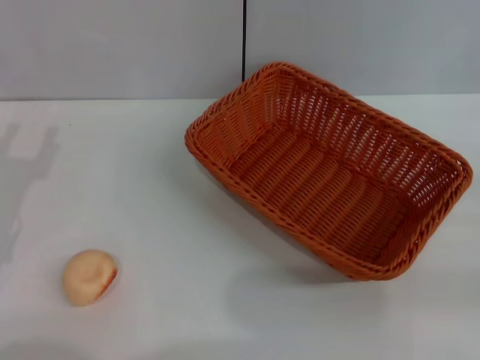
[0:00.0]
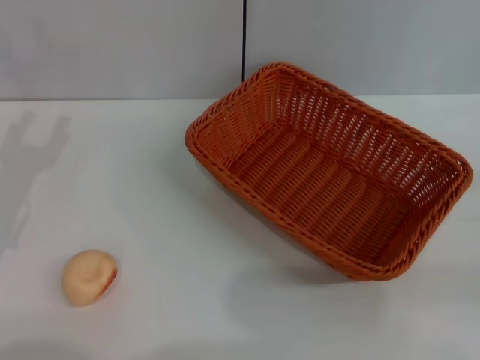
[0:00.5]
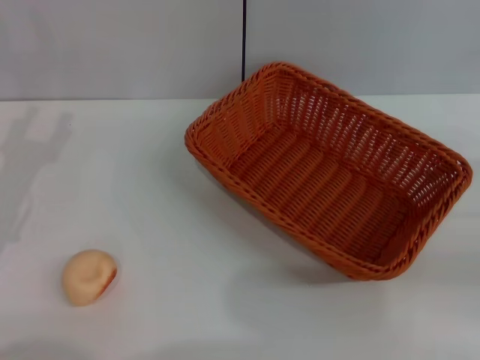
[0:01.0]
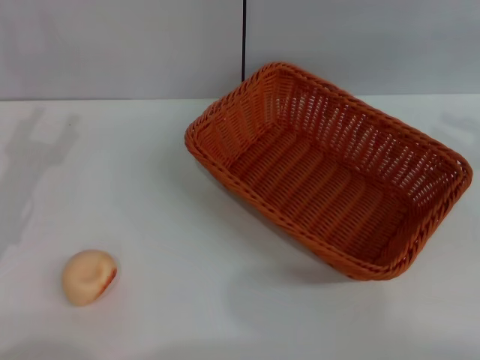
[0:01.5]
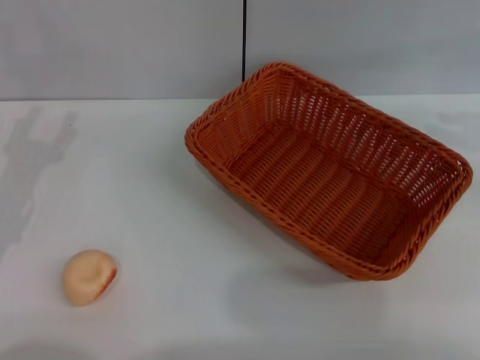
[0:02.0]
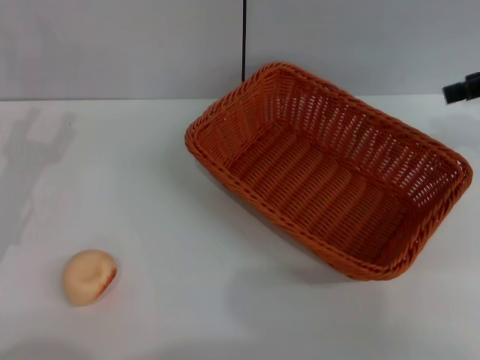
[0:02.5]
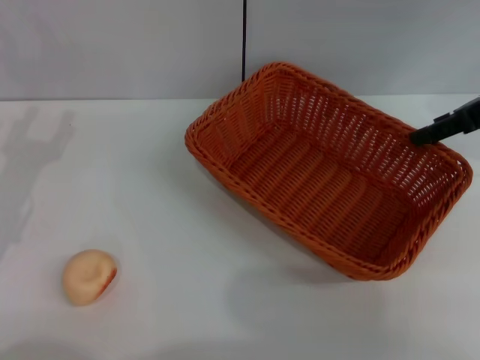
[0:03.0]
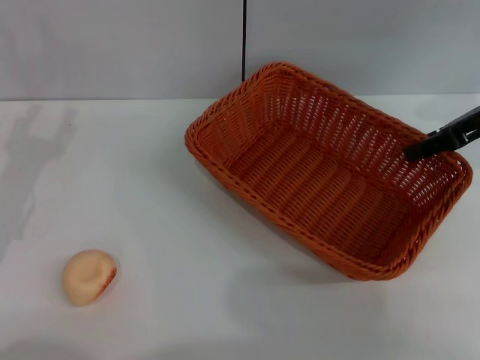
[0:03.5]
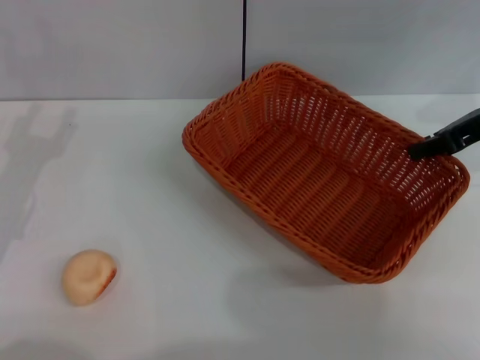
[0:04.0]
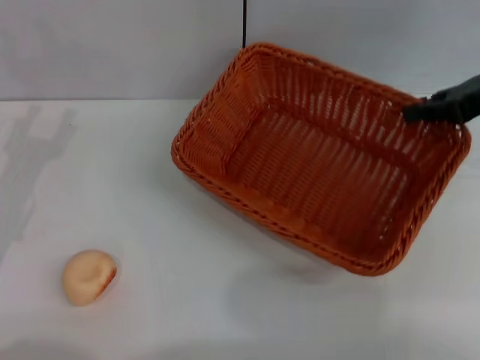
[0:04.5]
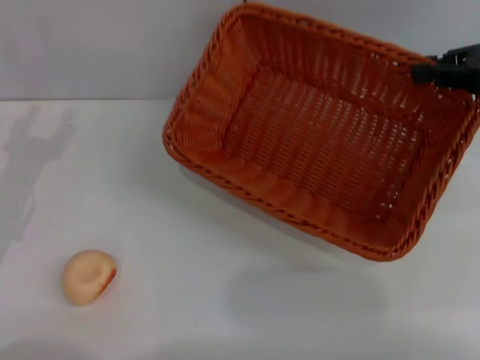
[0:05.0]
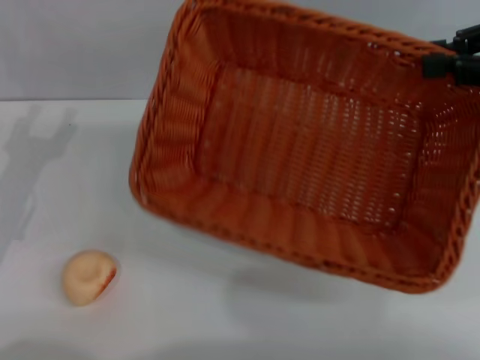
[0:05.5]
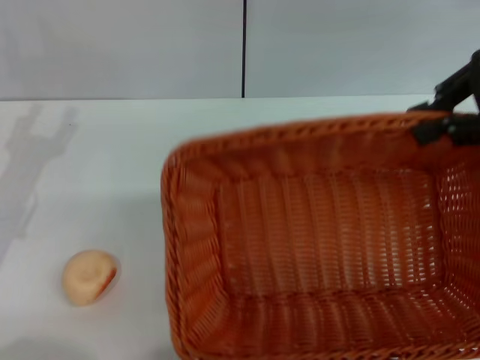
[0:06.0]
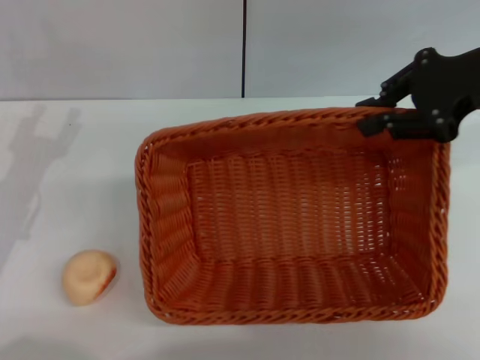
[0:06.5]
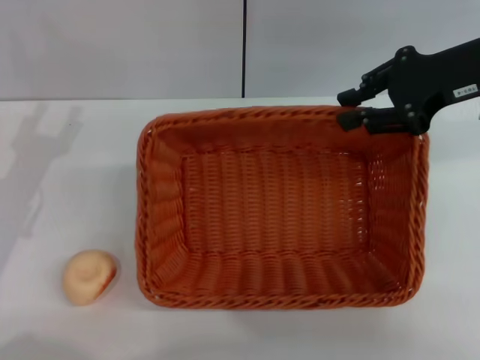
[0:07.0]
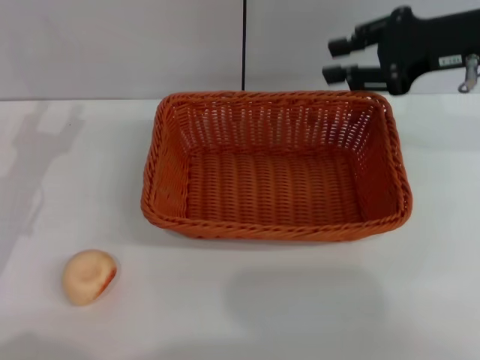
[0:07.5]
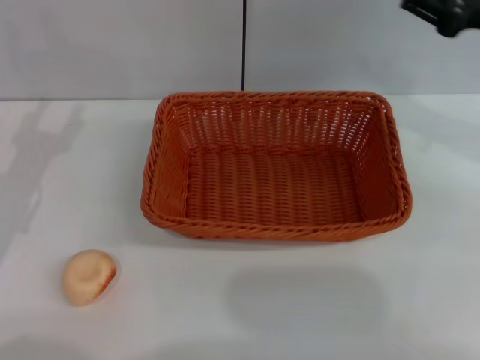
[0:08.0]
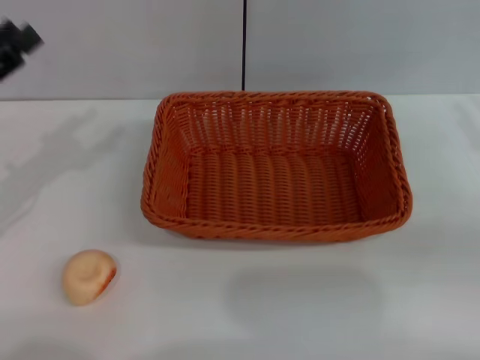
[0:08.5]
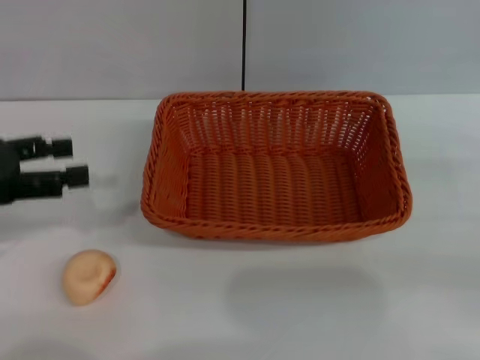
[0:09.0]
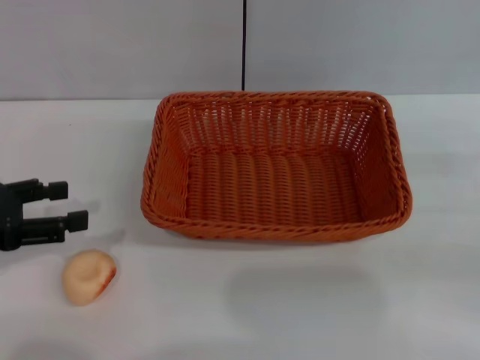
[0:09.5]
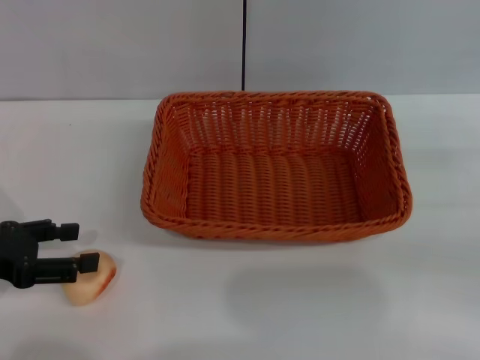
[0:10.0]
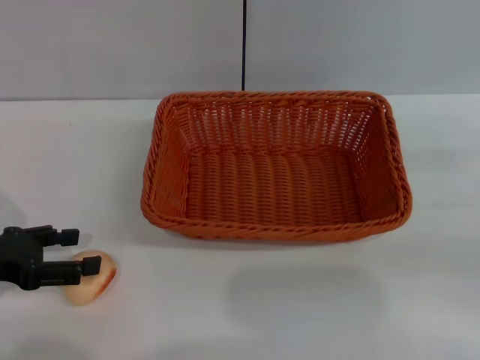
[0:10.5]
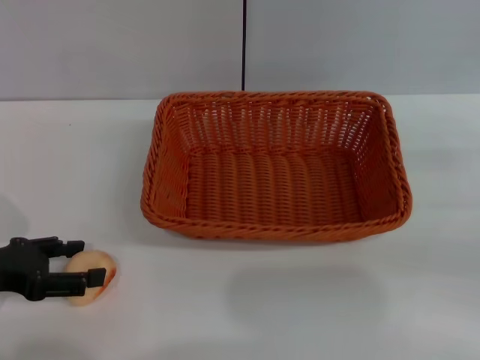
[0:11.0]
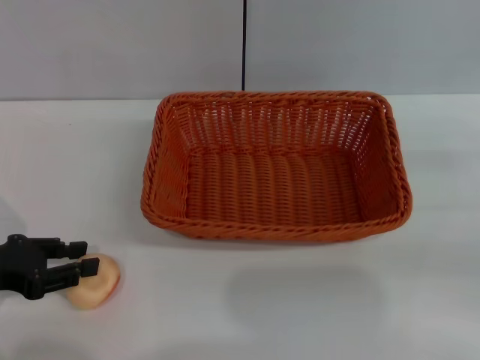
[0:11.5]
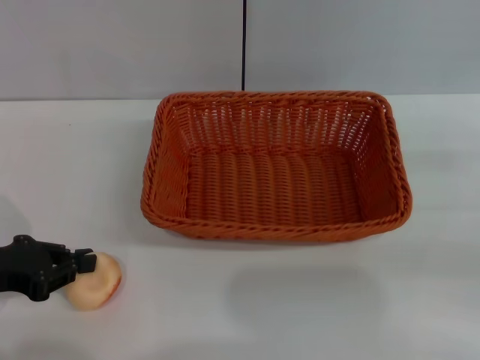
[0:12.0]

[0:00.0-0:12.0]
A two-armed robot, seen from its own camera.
Step, 0.0 to 7.5 s: Move the basket to the center of view with the right gripper.
0.0 to 2.0 s: The right gripper goes about 25 cm upward and forward.
2.0 to 4.0 s: The right gripper moves to the left and downward, roughly 15 cm, and closes its fingers.
4.0 to 6.0 s: The right gripper goes roughly 10 cm upward.
6.0 to 8.0 s: The right gripper goes some 10 cm downward.
8.0 to 10.0 s: The left gripper changes place by some 5 cm, while the right gripper moves backward, to the right and downward, approximately 15 cm.
10.0 to 12.0 s: The left gripper closes up.

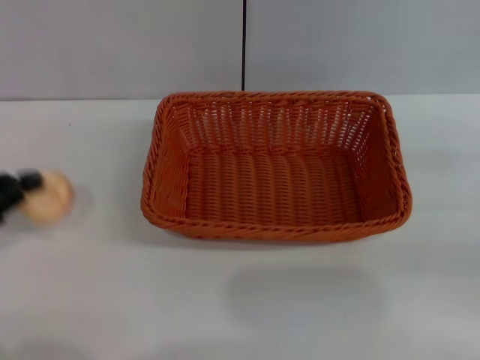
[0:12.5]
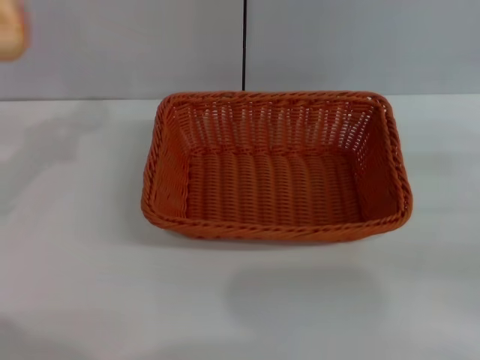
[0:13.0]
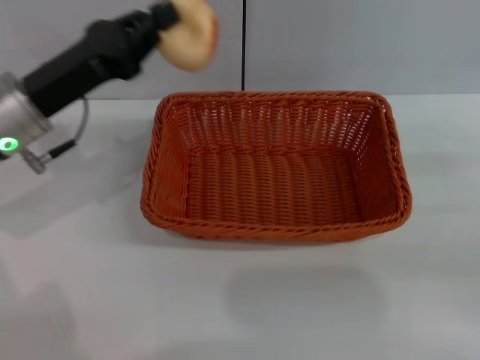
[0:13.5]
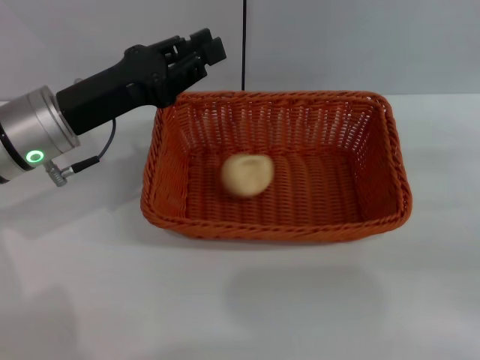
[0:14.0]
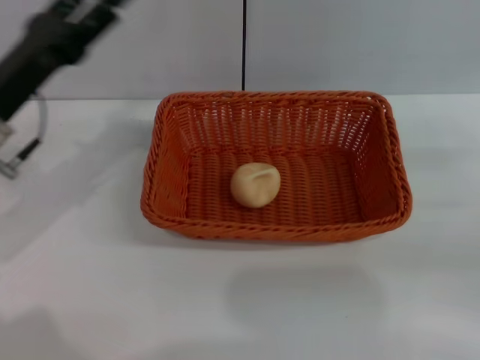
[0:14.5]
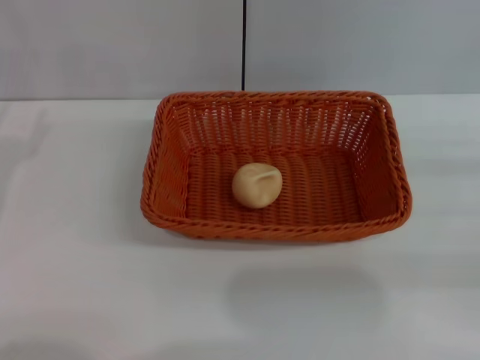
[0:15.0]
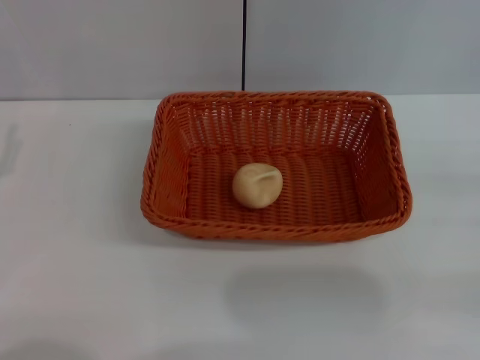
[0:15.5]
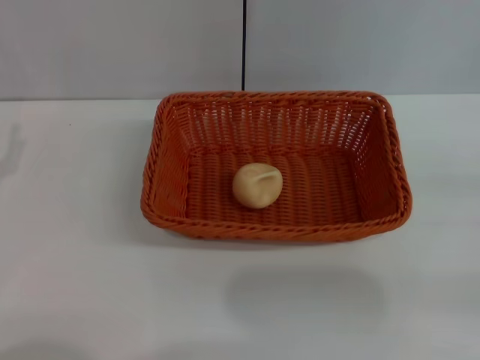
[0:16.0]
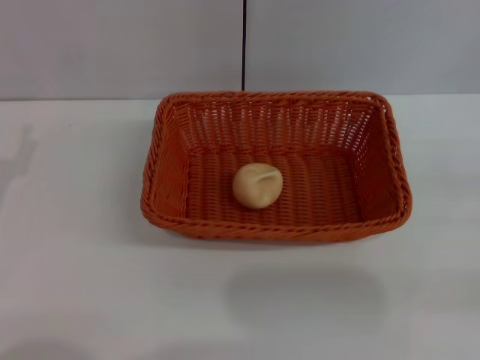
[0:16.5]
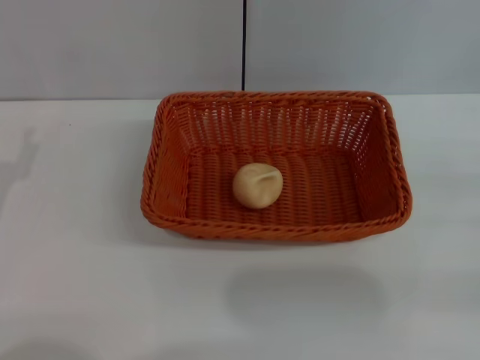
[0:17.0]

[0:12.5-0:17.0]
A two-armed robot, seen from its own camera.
Step, 12.5 to 14.0 s: Place the egg yolk pastry into the basket with the left gripper.
12.5 to 14.5 s: The left gripper shifts some 10 cm to the right and forward, and opens up.
14.5 to 17.0 s: The left gripper travels backward, to the left and downward by some 10 cm, and opens its fingers.

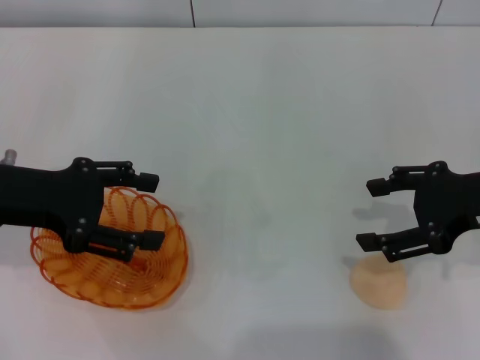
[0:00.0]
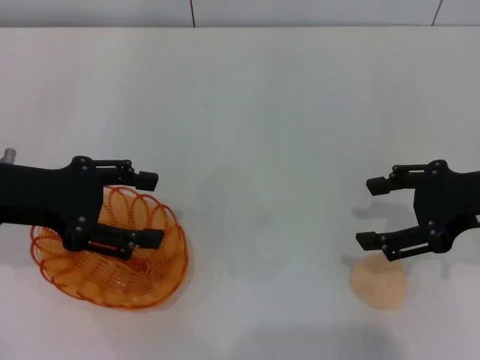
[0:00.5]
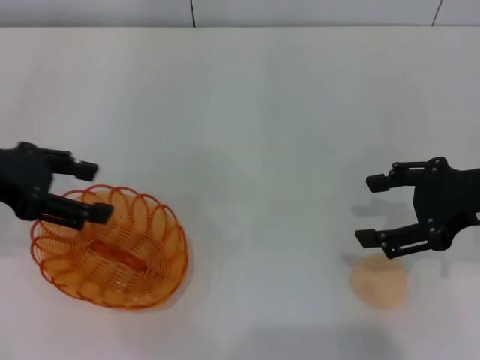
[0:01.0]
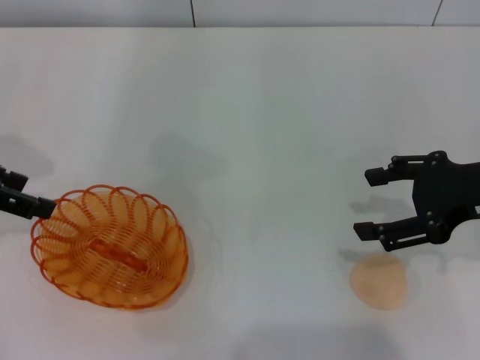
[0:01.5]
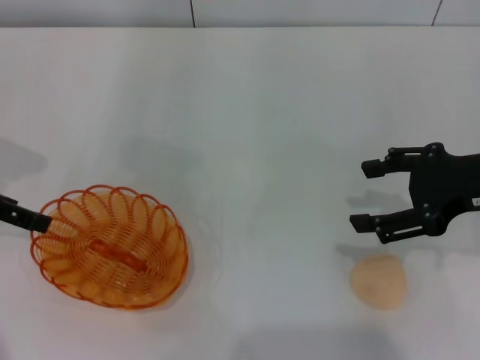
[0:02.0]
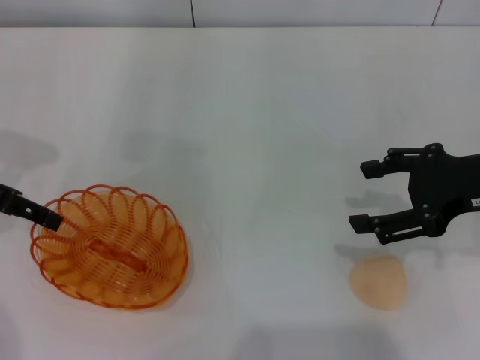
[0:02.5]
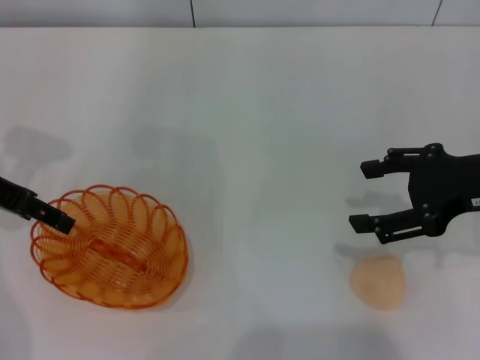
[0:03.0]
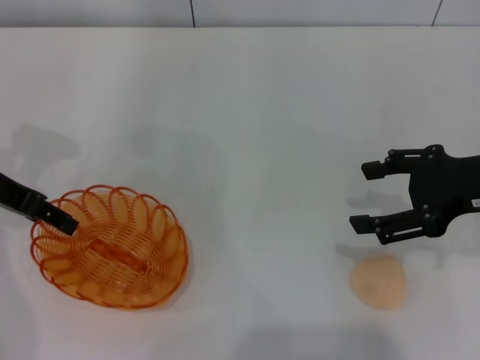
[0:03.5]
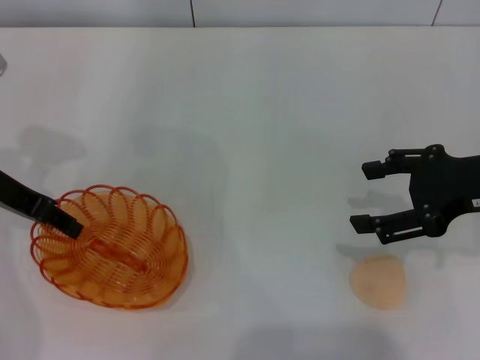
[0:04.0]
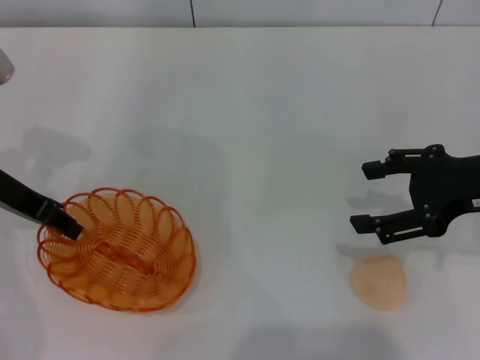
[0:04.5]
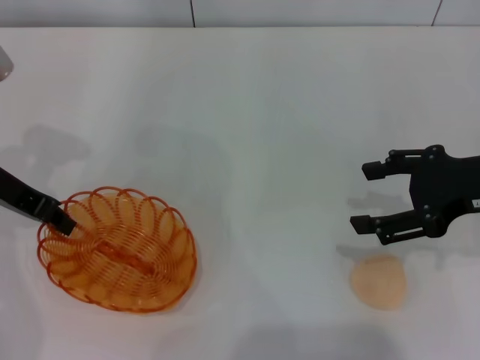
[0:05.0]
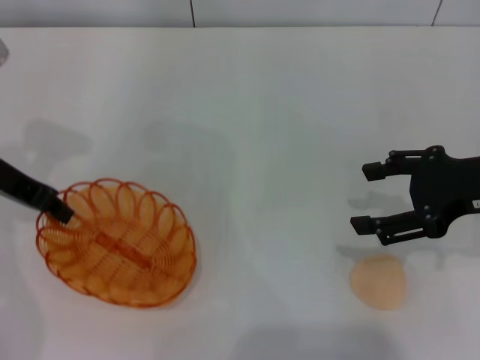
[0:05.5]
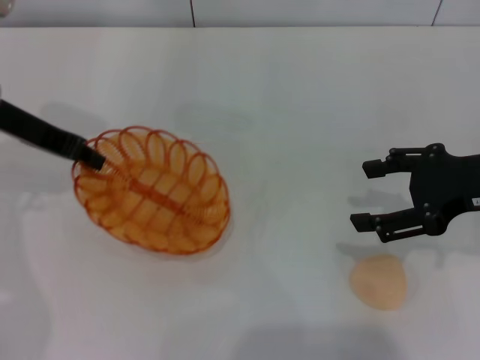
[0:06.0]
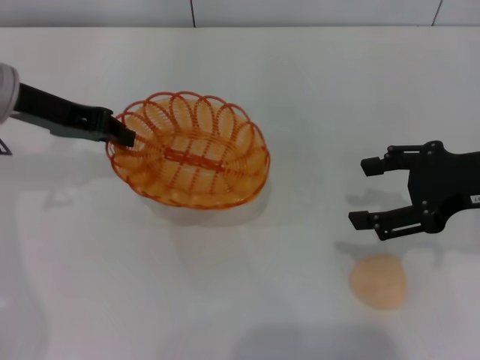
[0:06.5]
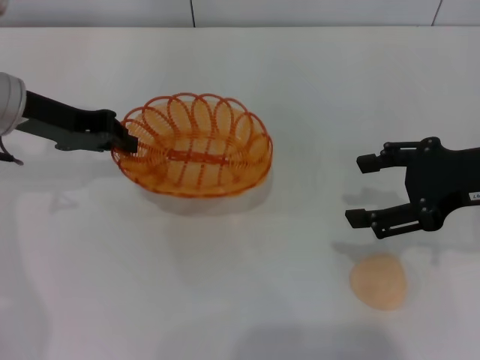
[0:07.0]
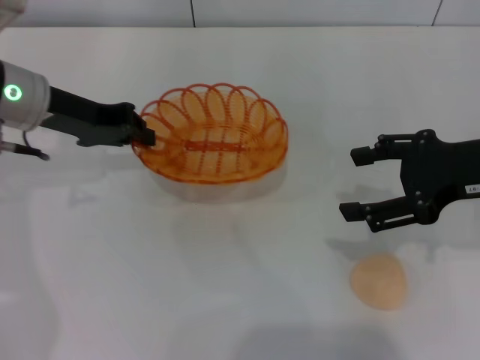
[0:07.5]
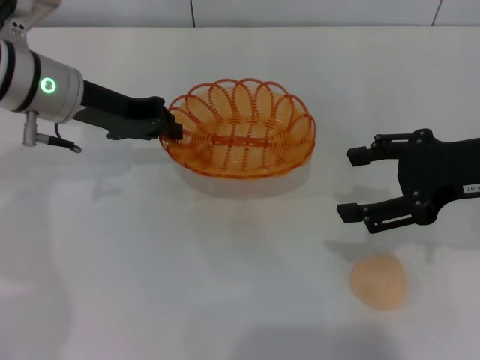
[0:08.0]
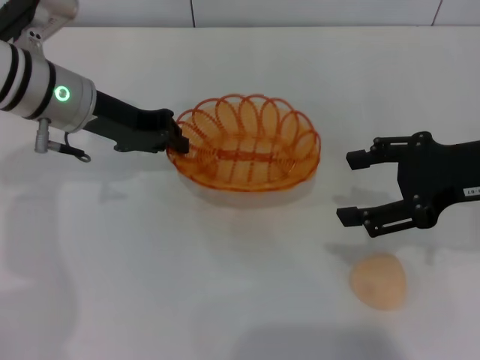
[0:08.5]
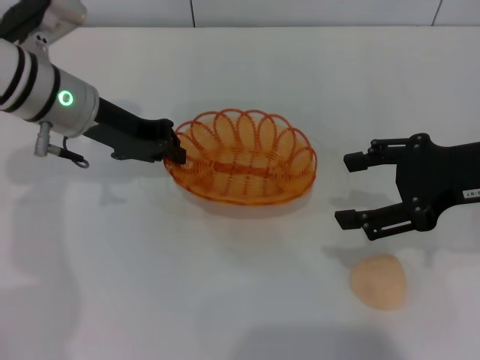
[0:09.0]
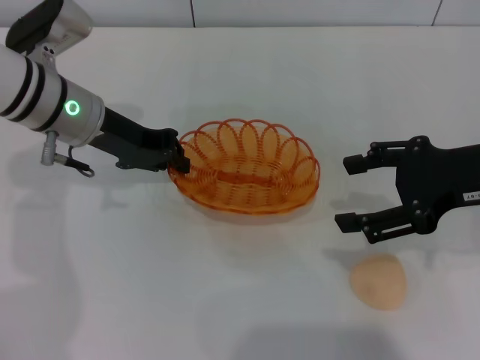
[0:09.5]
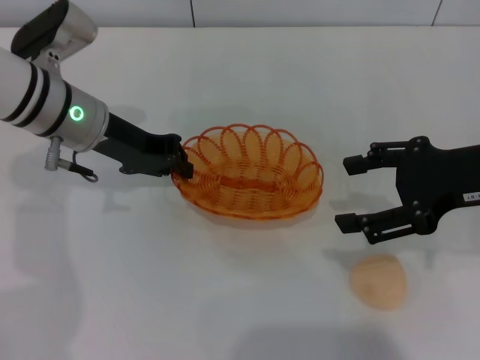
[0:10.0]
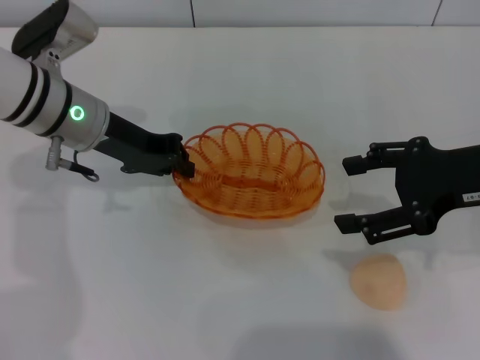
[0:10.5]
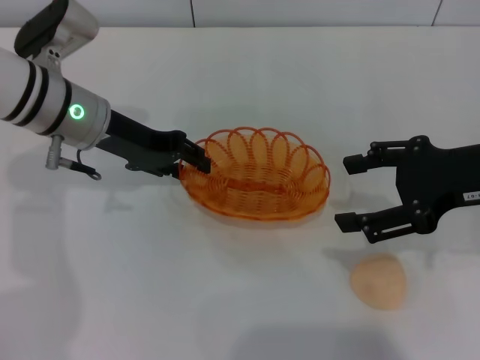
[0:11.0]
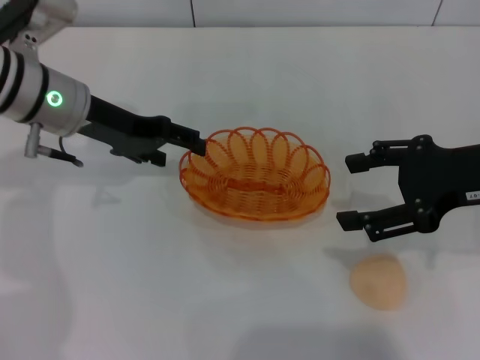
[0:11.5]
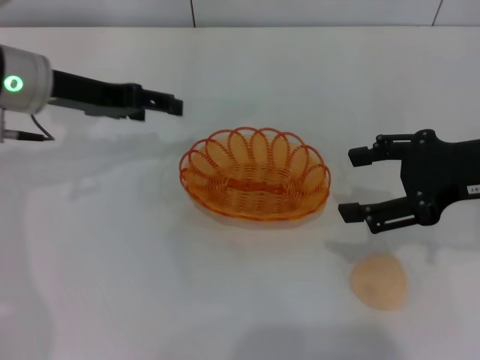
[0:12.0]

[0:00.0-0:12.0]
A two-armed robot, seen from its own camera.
Step, 0.0 to 7.5 s: Pick up the basket with the left gripper.
0.0 to 2.0 s: The left gripper travels to the left by about 5 cm.
2.0 to 4.0 s: The left gripper ends up about 5 cm from where it was.
4.0 to 6.0 s: The left gripper closes up.
6.0 to 8.0 s: The left gripper shifts roughly 5 cm to the right.
10.0 to 12.0 s: The left gripper shifts by approximately 5 cm, and opens up.
